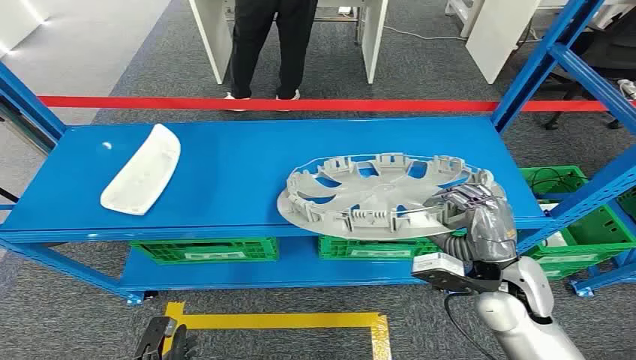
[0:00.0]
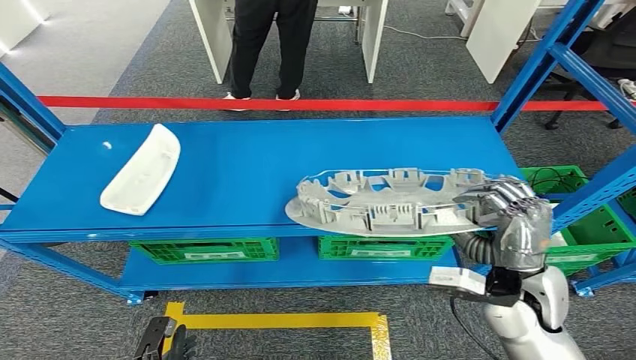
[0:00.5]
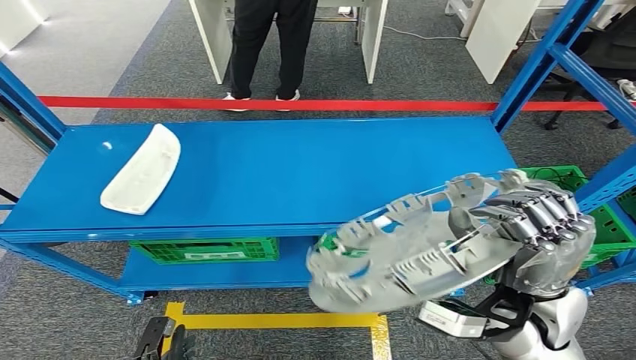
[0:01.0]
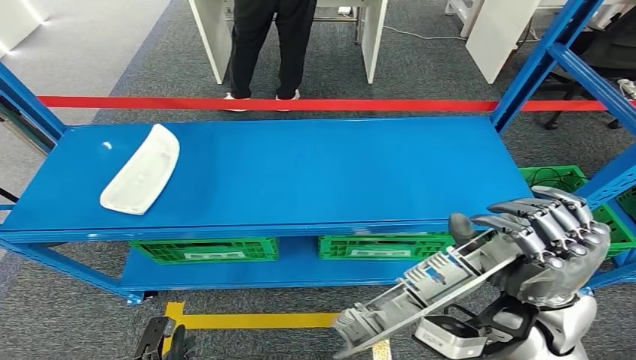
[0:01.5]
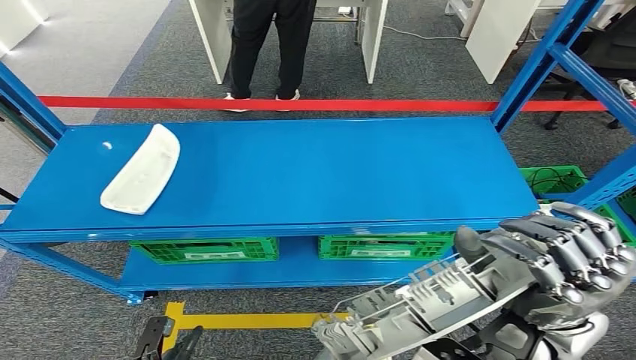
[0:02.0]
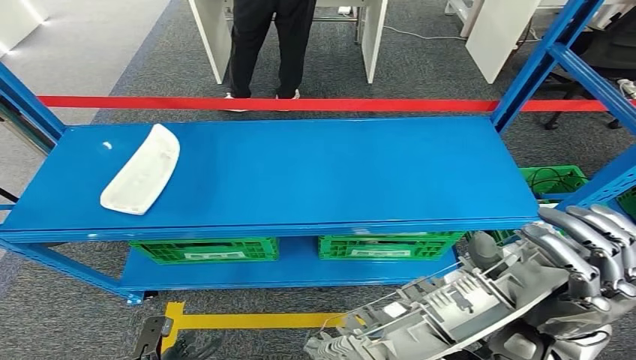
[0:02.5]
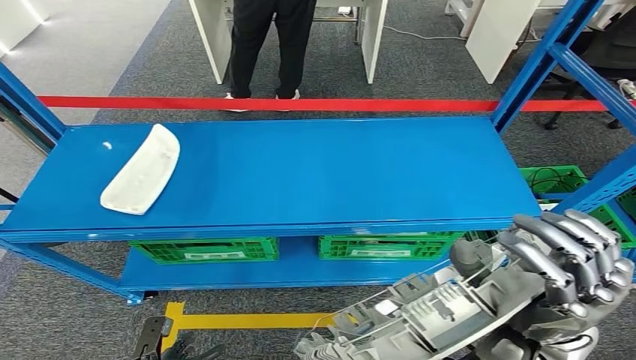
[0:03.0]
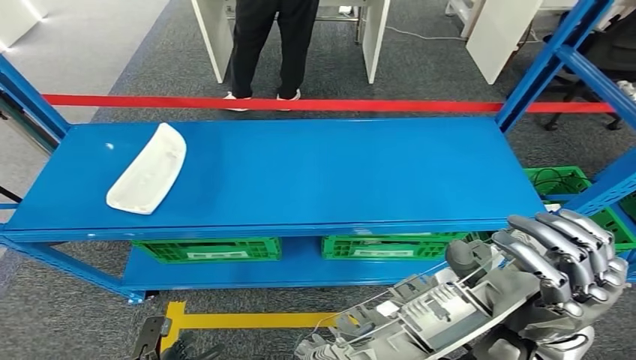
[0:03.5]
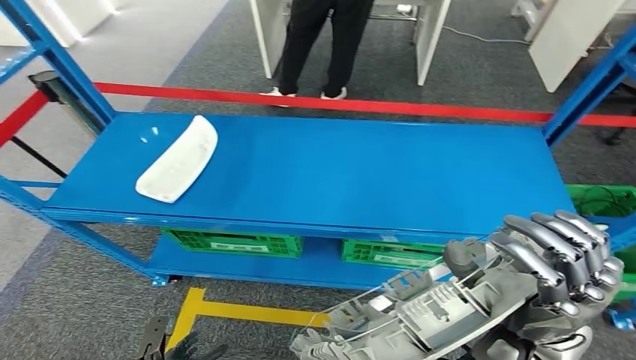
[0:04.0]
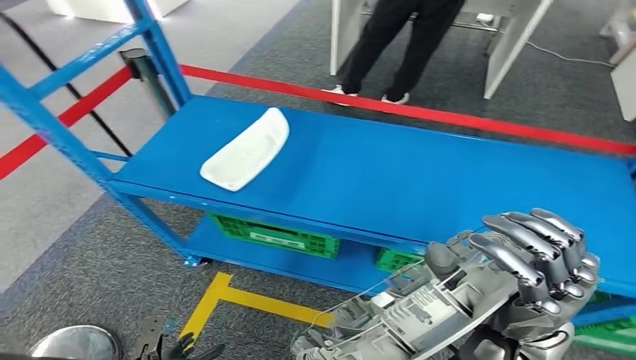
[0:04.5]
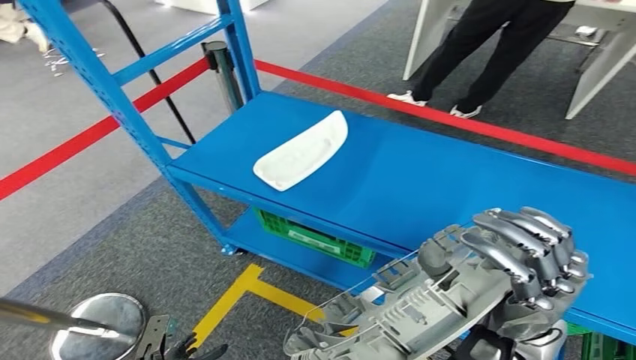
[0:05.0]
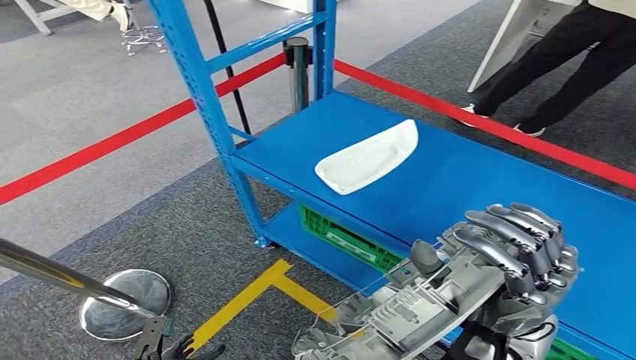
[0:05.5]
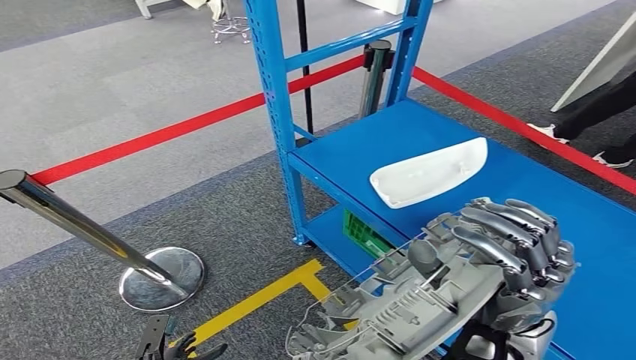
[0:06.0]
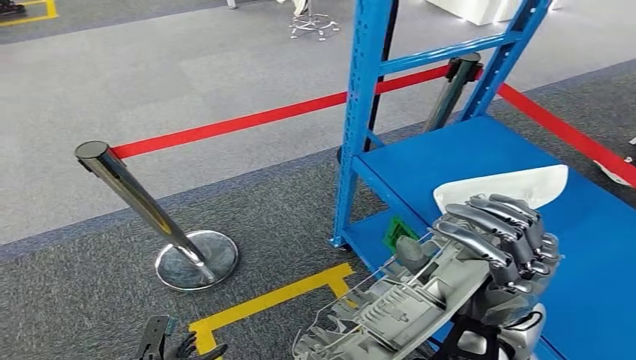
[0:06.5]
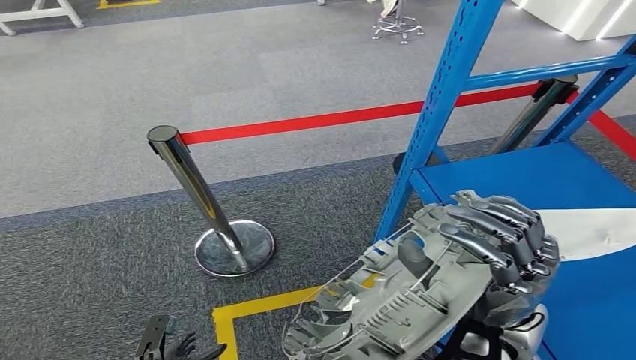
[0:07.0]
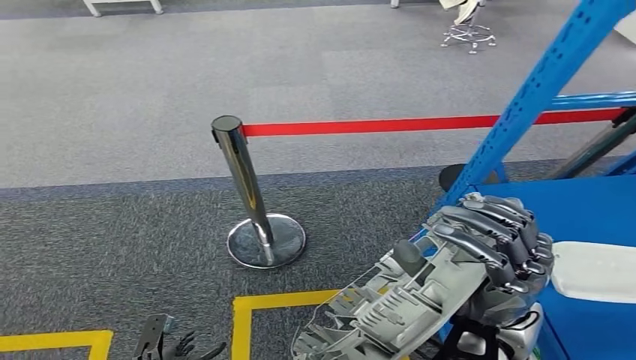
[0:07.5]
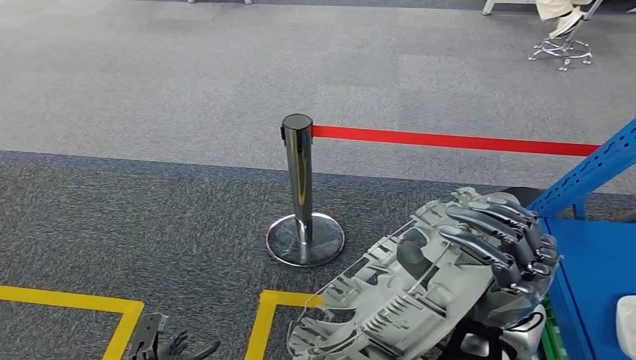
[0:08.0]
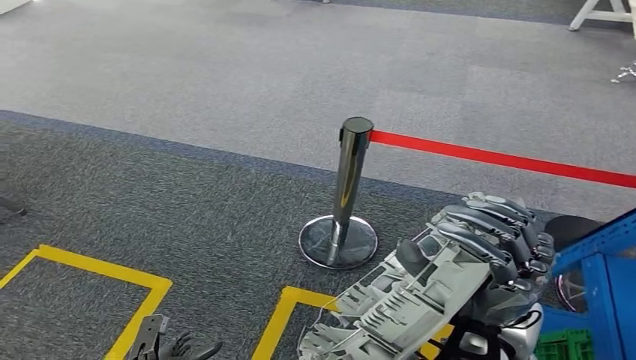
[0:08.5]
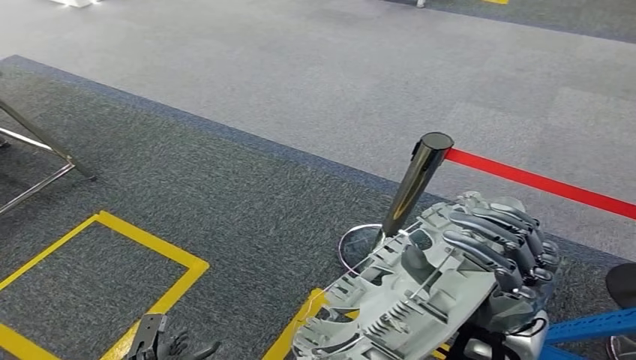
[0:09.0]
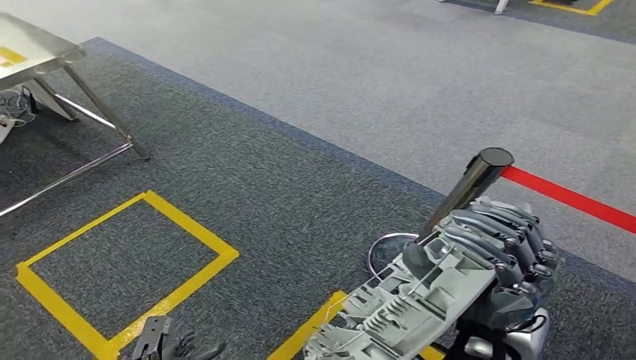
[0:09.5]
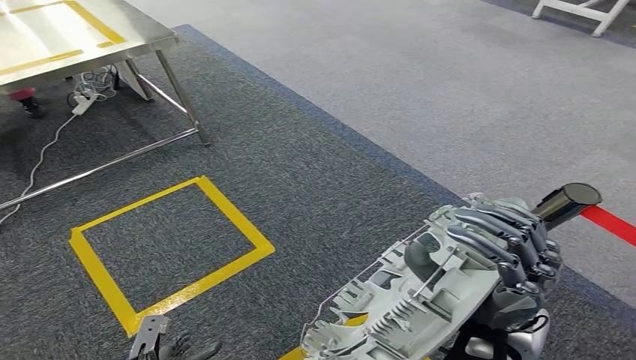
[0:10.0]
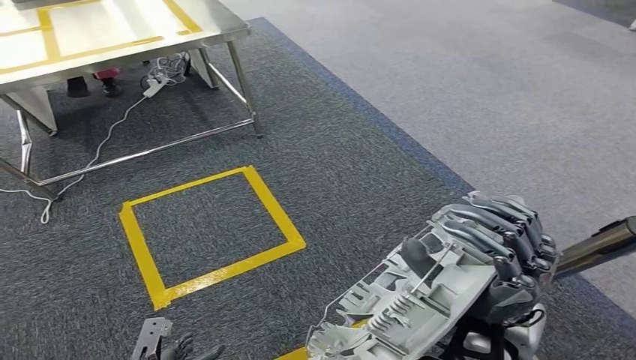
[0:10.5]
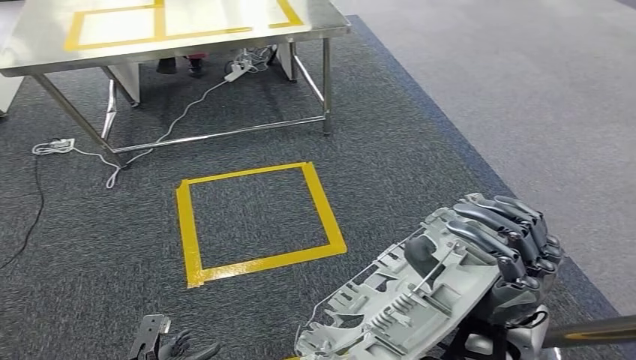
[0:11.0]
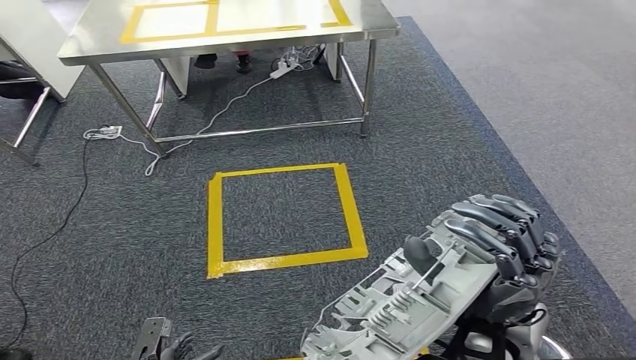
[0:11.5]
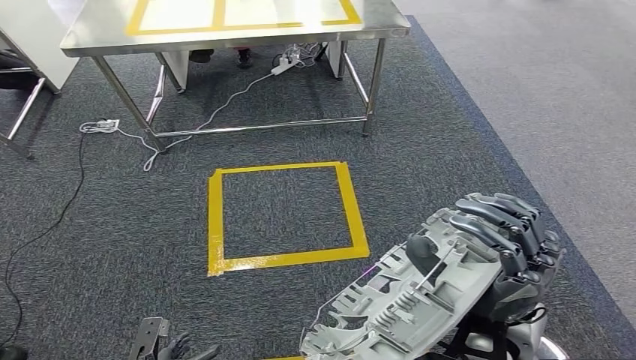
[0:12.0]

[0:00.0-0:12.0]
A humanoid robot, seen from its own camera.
Step, 0:00.0 to 0:01.5: Pick up the small component from the shelf.

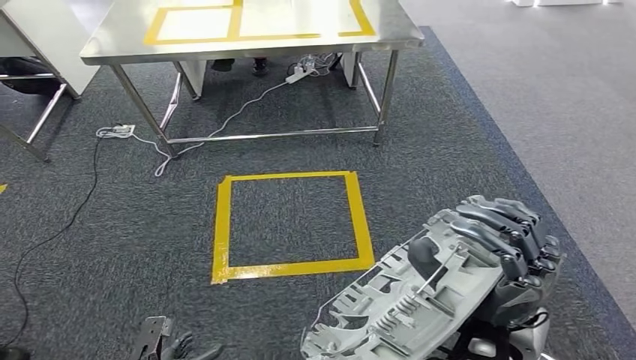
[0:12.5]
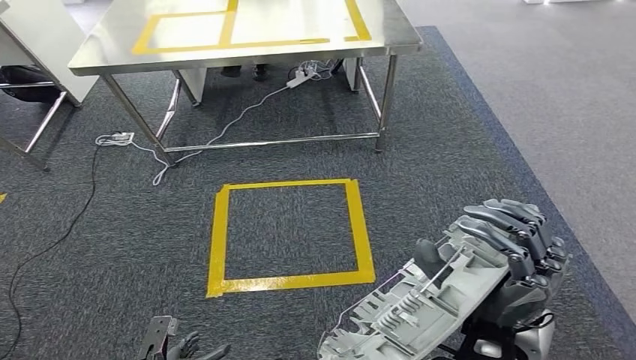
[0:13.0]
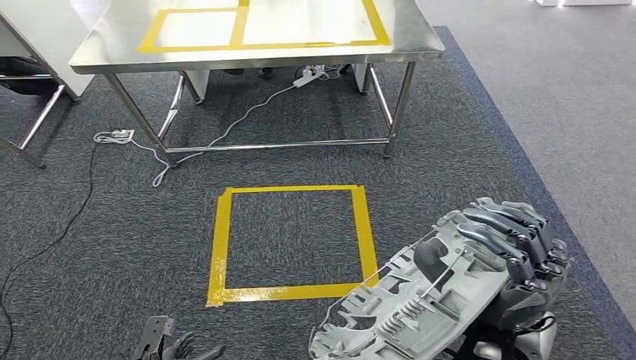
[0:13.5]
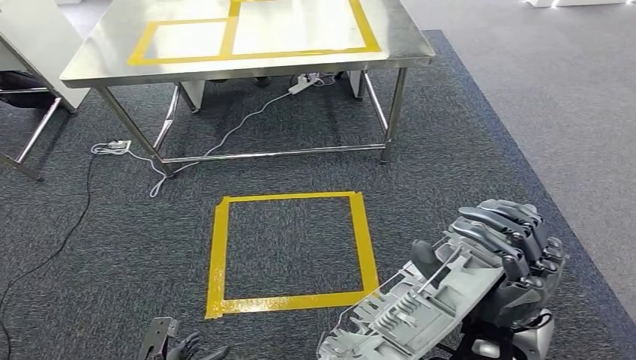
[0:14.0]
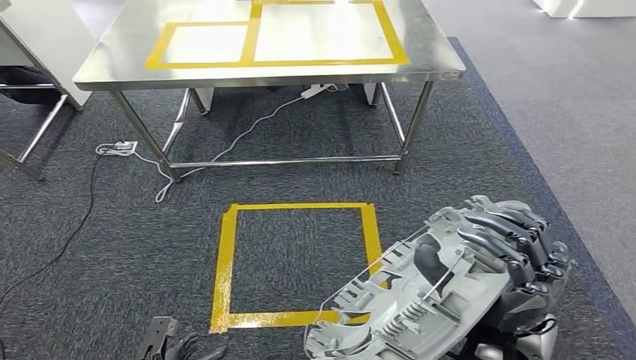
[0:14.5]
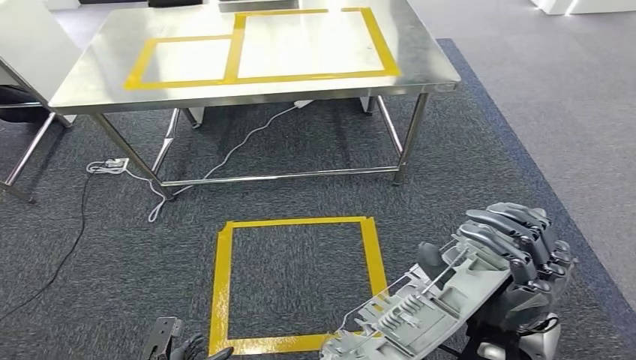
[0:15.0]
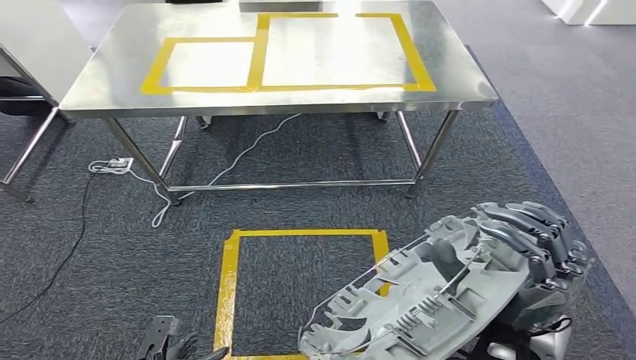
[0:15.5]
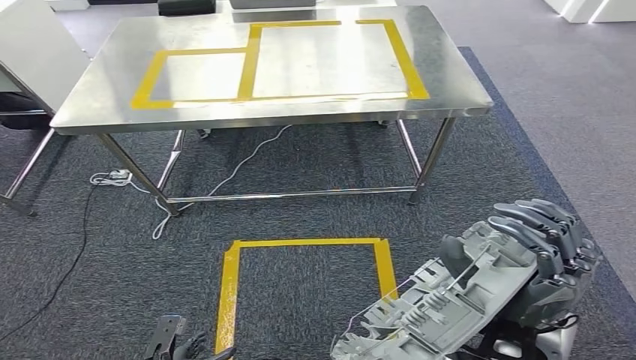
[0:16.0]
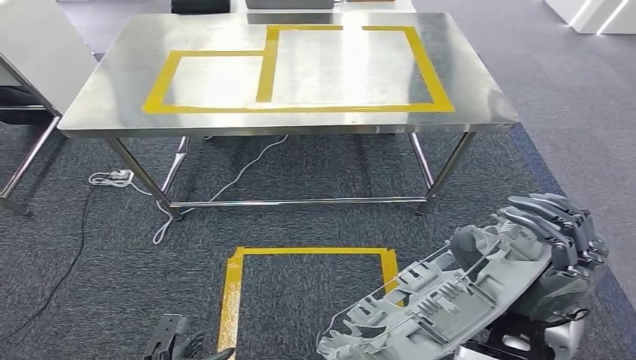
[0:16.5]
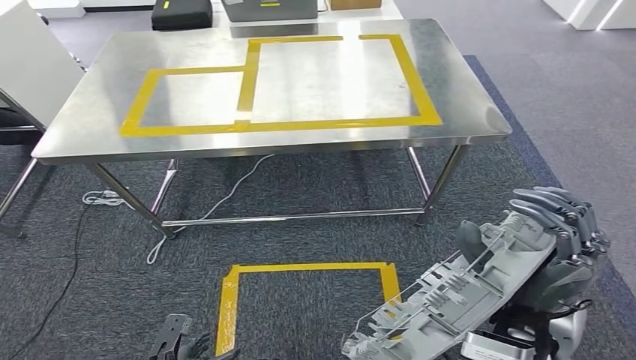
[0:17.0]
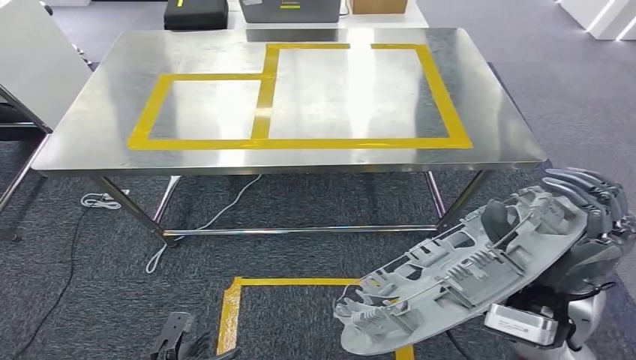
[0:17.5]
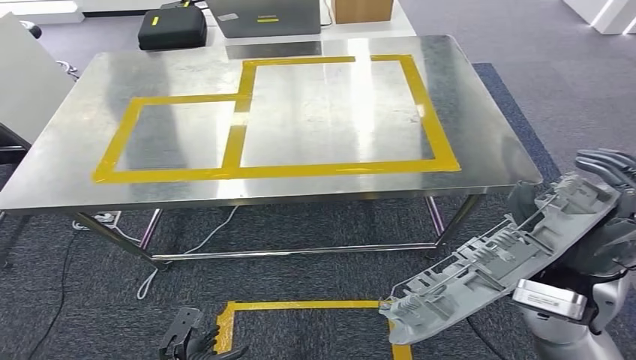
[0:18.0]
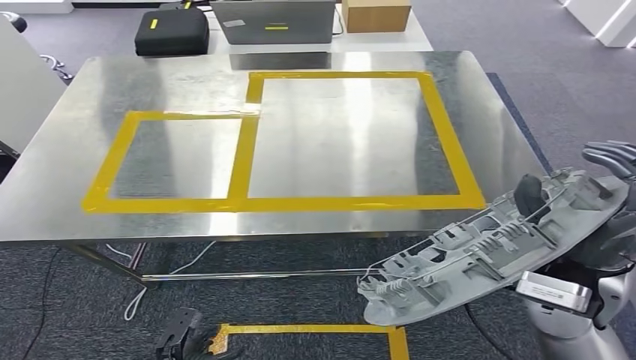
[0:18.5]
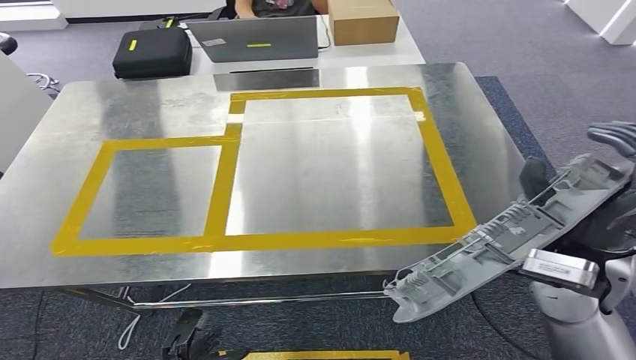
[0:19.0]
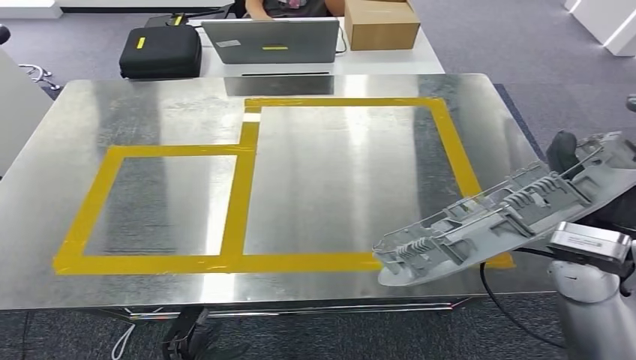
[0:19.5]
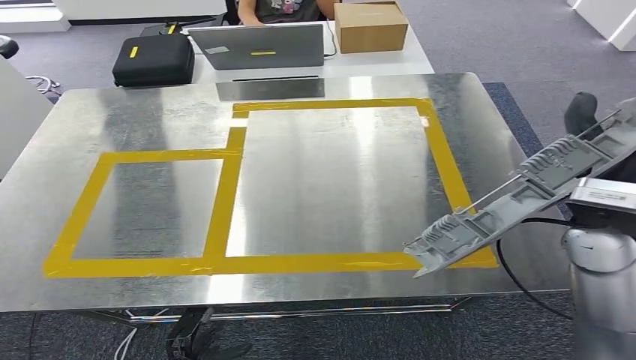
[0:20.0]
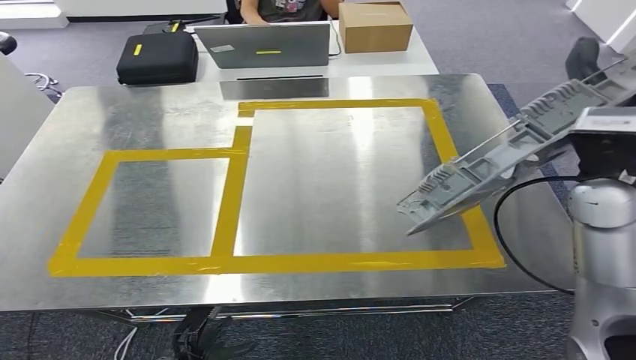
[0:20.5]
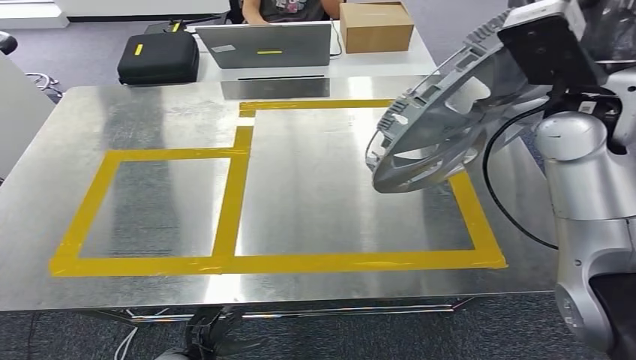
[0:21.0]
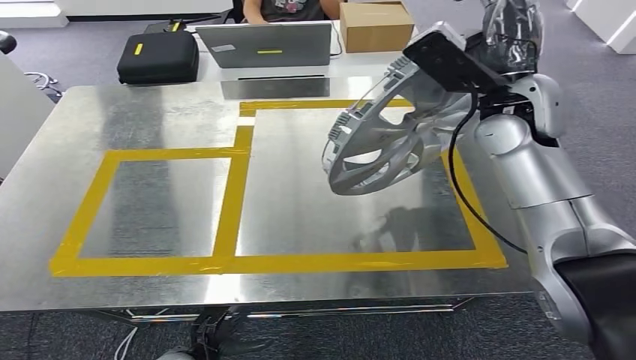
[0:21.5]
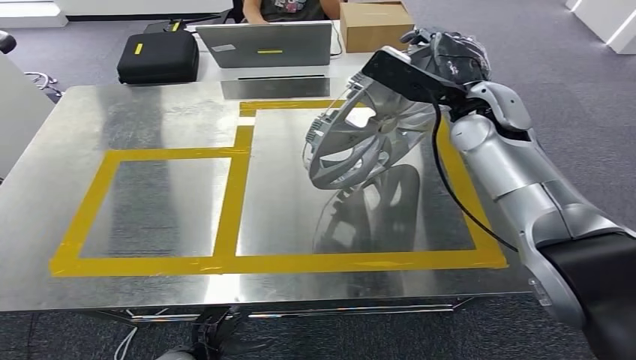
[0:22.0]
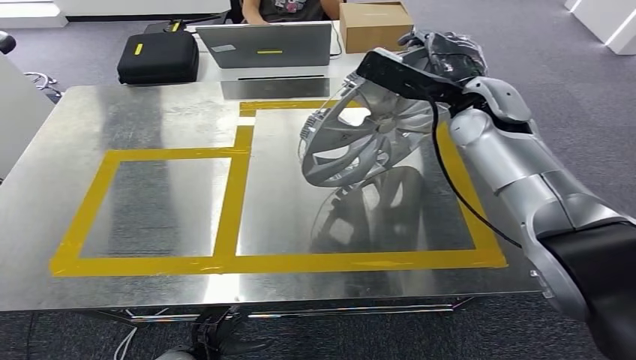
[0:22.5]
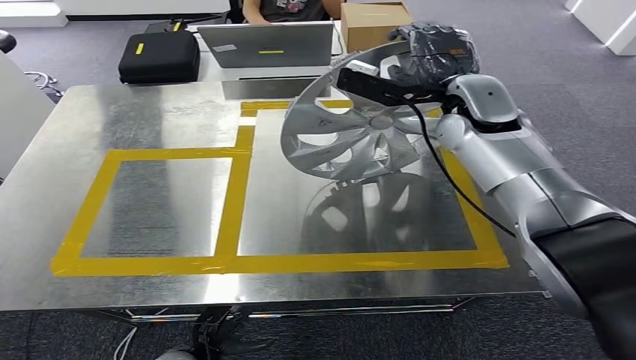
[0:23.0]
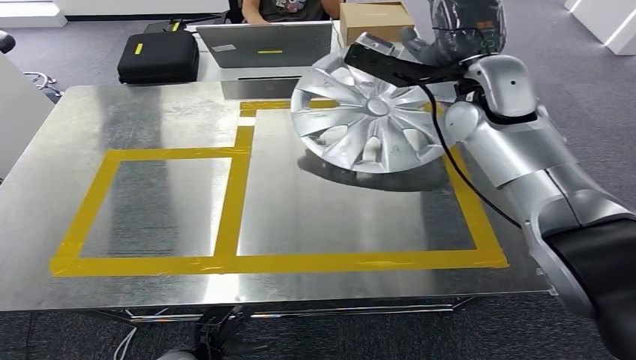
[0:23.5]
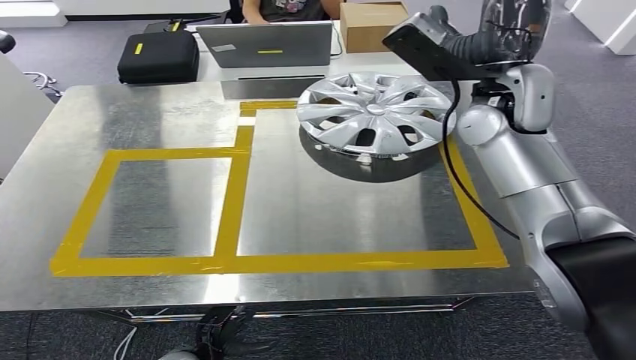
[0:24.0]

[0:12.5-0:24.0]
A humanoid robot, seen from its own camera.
Step, 0:12.5 to 0:20.0: Move the small component to the workbench.
